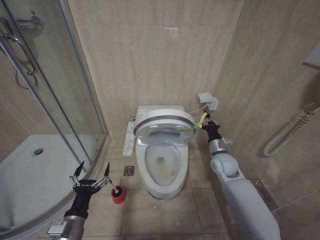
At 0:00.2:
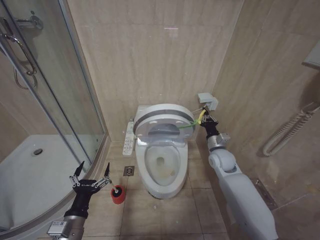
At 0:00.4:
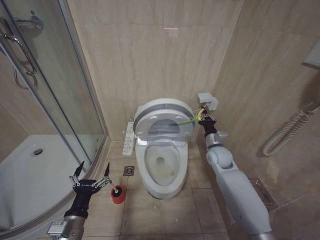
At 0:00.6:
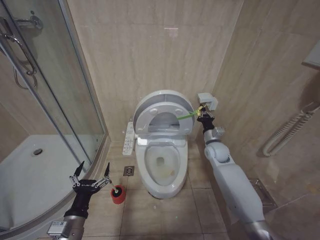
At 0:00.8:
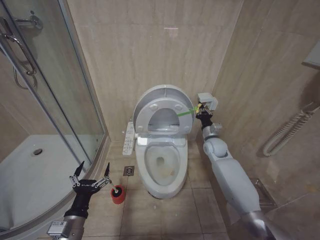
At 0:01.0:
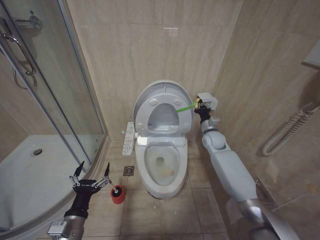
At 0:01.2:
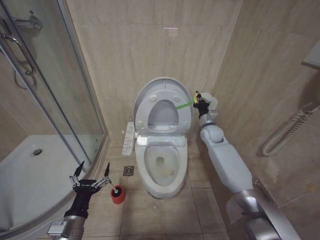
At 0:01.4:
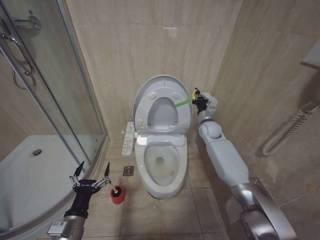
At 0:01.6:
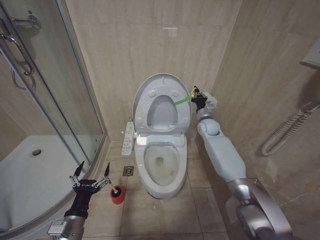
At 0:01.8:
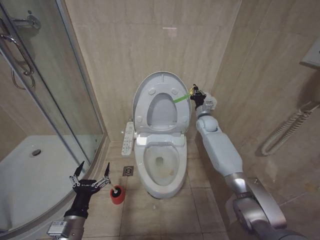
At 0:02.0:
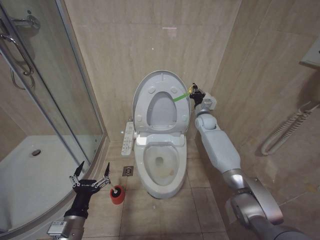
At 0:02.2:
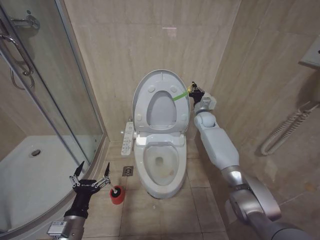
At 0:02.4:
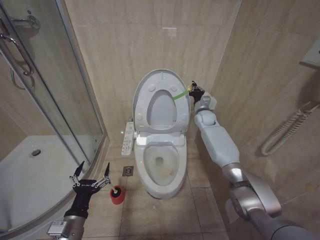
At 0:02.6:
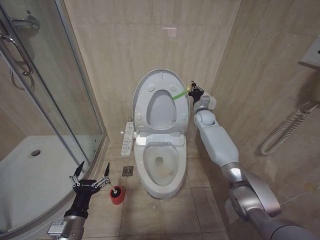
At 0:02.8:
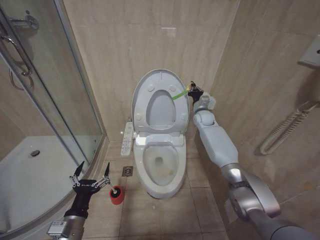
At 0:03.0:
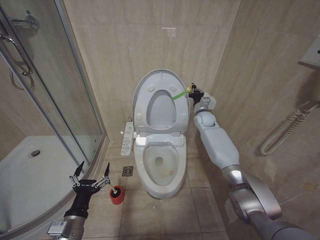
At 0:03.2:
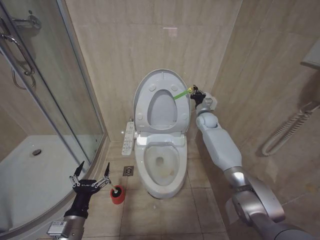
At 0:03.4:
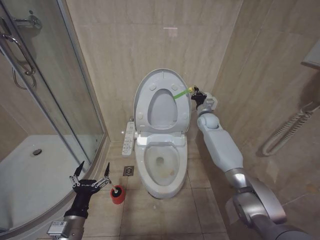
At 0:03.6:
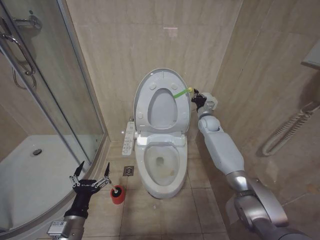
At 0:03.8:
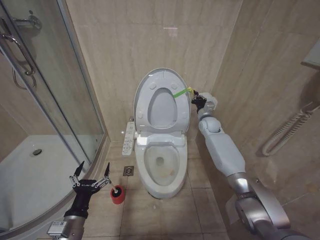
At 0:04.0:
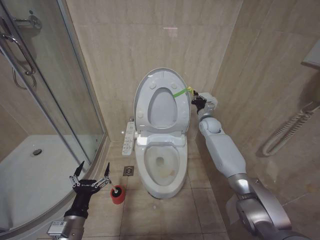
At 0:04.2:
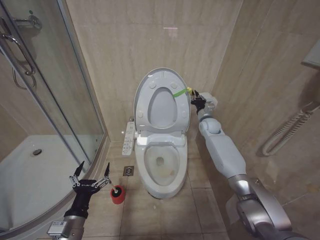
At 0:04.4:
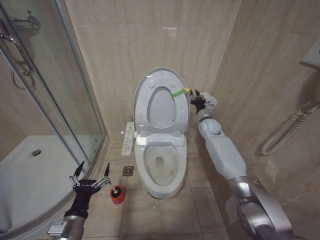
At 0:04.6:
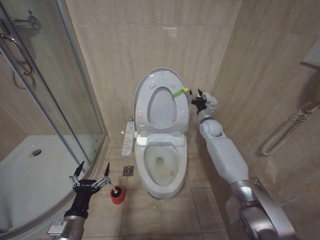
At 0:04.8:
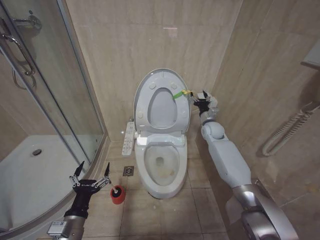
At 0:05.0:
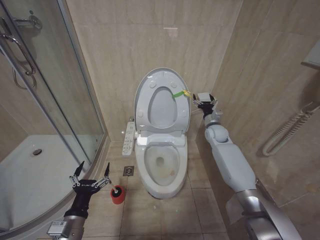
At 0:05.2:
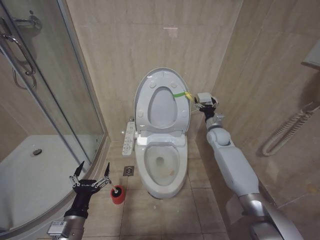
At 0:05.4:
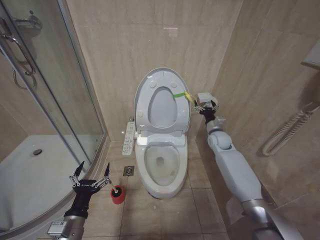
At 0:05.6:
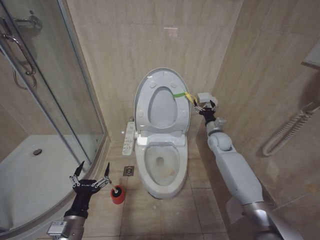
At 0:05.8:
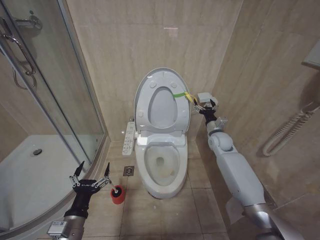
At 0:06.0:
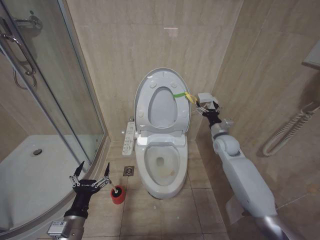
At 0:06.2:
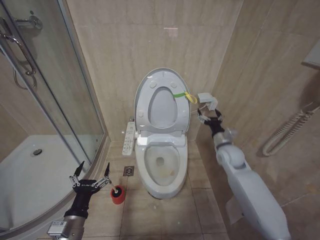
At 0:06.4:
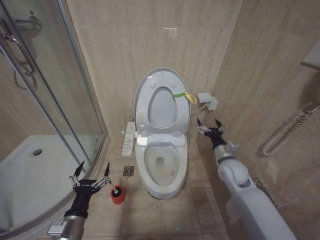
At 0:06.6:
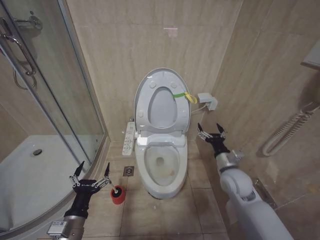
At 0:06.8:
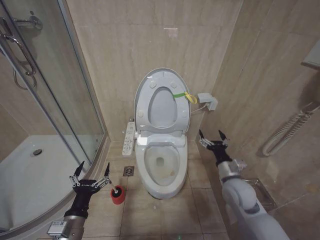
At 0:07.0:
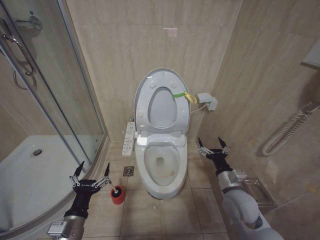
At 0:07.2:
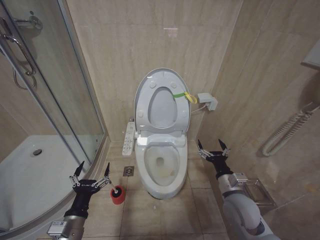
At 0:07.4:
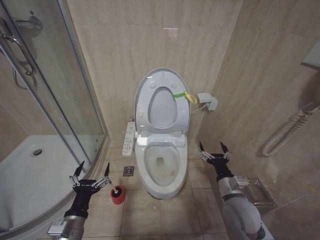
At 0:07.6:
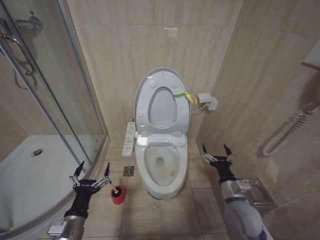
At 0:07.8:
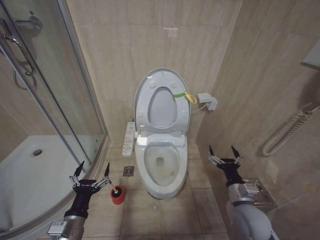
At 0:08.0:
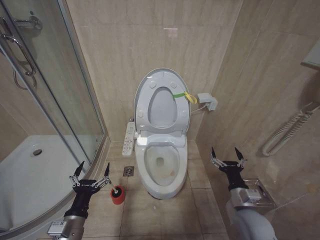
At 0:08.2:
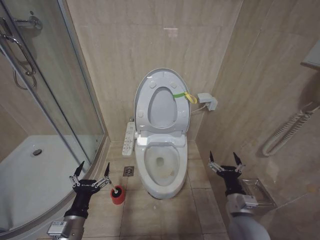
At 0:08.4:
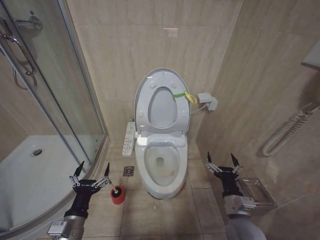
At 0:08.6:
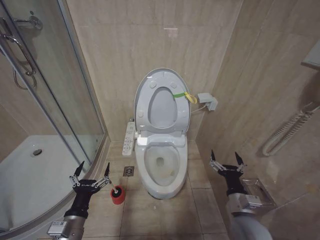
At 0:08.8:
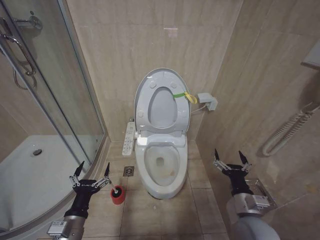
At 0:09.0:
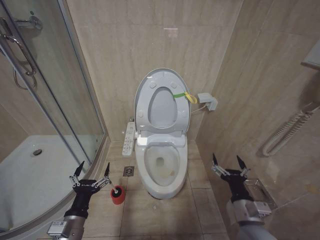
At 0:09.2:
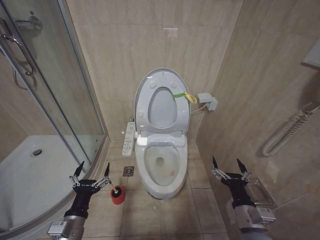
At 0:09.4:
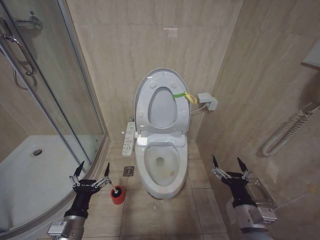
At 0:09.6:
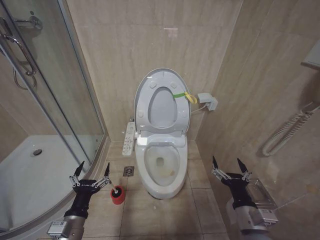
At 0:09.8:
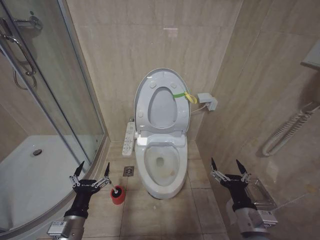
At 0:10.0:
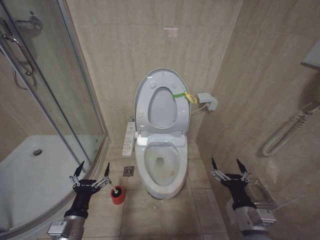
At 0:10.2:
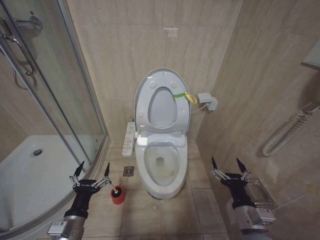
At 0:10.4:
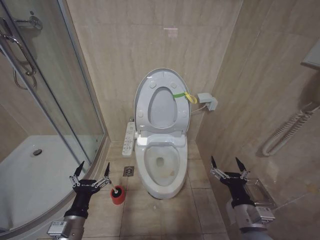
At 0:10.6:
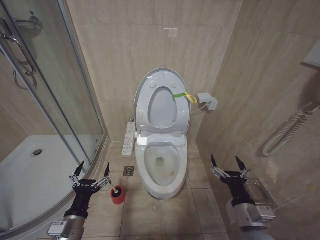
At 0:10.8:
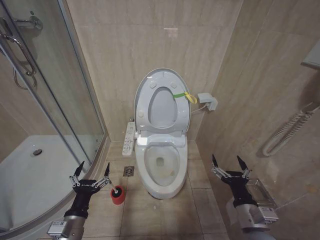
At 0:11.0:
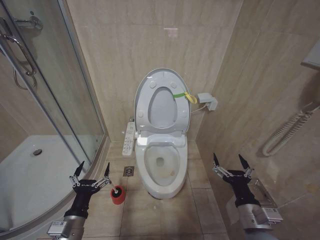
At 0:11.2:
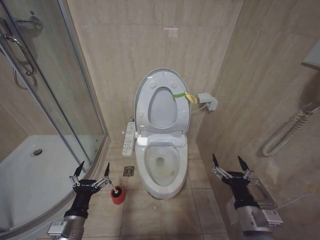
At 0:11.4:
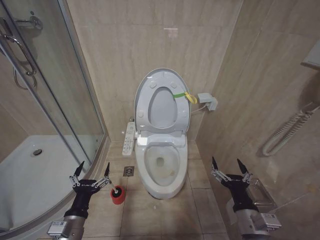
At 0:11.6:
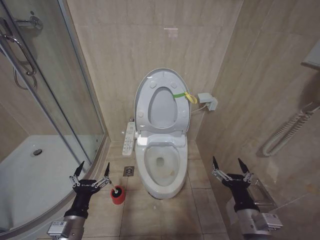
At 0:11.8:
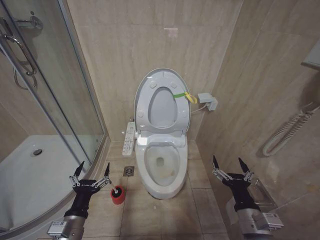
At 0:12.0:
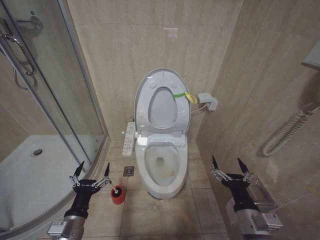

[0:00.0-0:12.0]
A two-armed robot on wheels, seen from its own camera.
Task of the whole recording: Open the toilet lid, clean the toilet bowl with a toilet brush, close the toilet lid, and flush.
0:00.0 to 0:01.6: The right gripper moves forward and upward, some 15 cm.
0:01.6 to 0:04.4: The grippers move only a little.
0:04.4 to 0:06.0: The right gripper is displaced backward by some 10 cm, and opens.
0:06.0 to 0:07.6: The right gripper heads backward, covering about 25 cm.
0:07.6 to 0:09.0: The right gripper is displaced backward by some 5 cm.
0:09.0 to 0:12.0: There are only small adjustments of the grippers.

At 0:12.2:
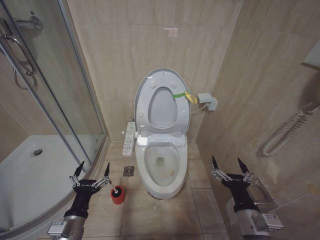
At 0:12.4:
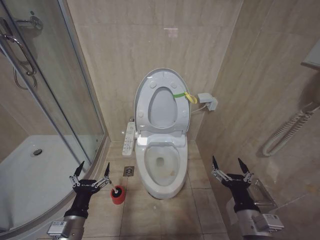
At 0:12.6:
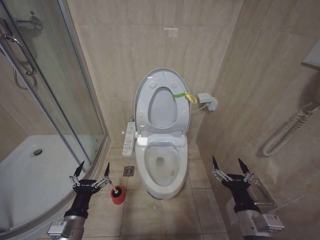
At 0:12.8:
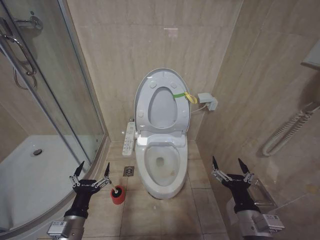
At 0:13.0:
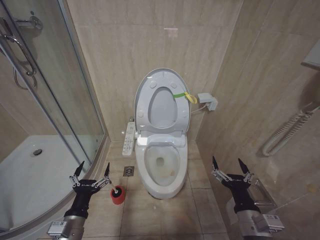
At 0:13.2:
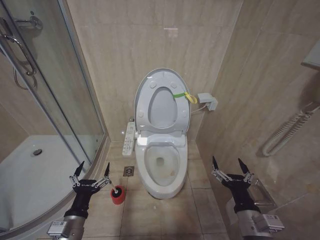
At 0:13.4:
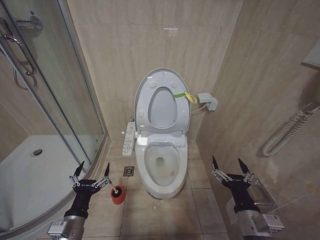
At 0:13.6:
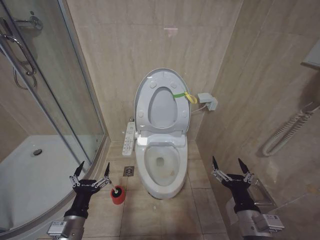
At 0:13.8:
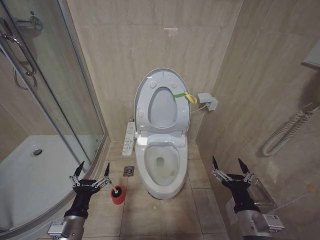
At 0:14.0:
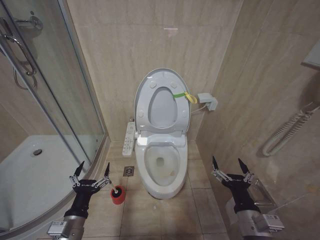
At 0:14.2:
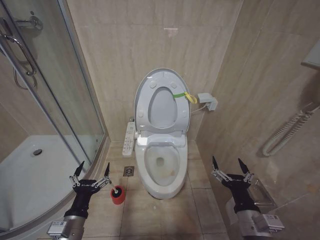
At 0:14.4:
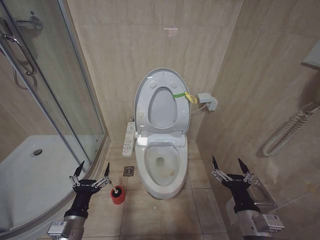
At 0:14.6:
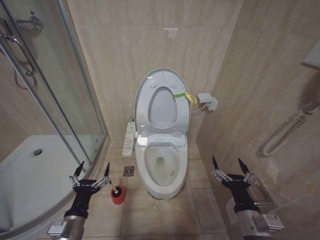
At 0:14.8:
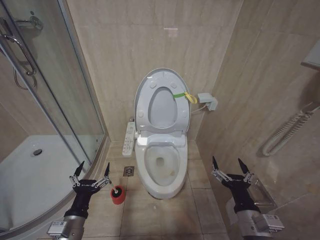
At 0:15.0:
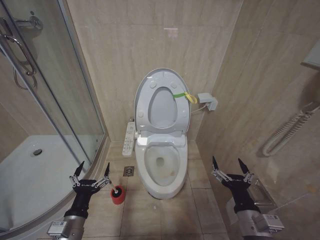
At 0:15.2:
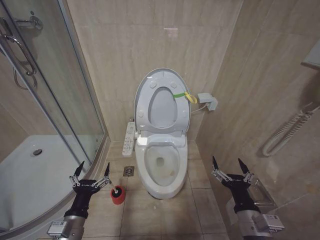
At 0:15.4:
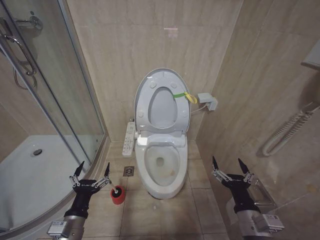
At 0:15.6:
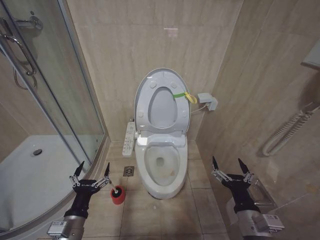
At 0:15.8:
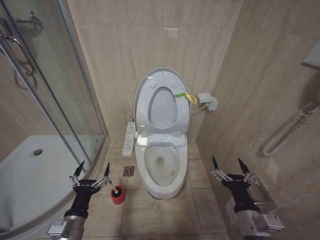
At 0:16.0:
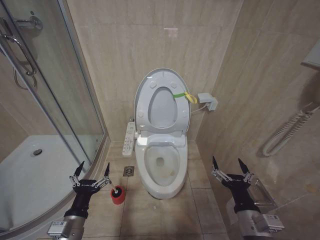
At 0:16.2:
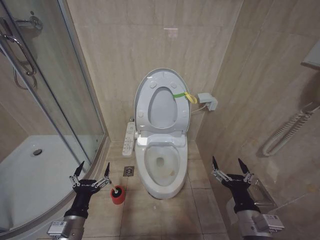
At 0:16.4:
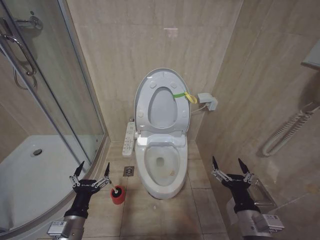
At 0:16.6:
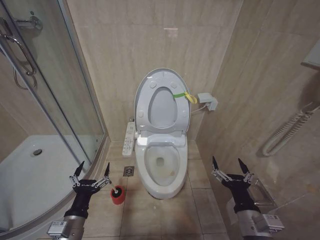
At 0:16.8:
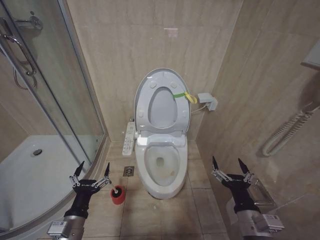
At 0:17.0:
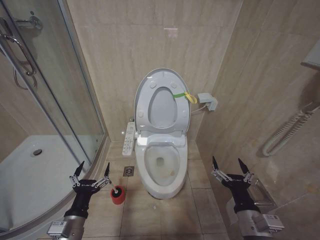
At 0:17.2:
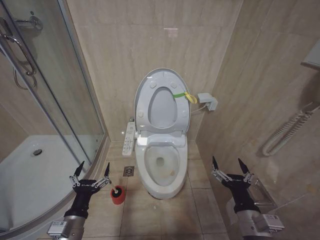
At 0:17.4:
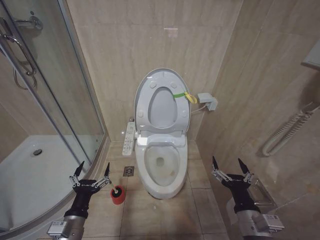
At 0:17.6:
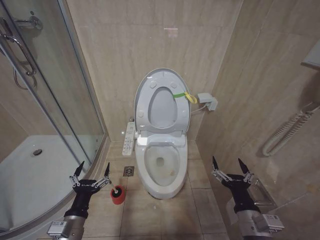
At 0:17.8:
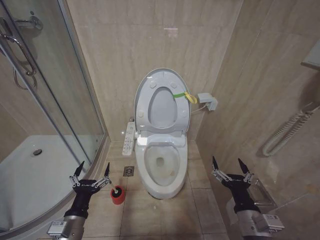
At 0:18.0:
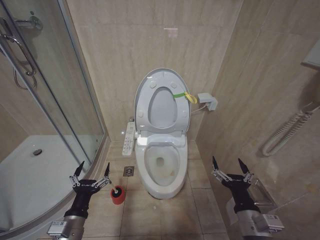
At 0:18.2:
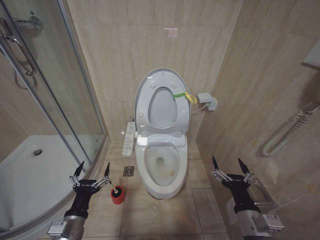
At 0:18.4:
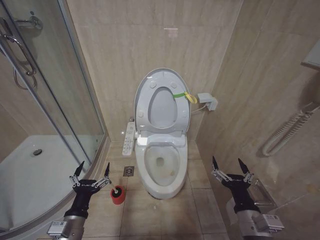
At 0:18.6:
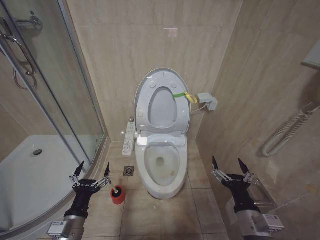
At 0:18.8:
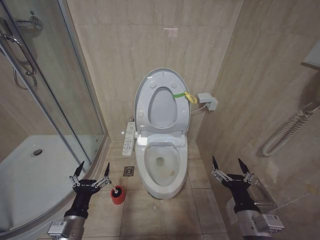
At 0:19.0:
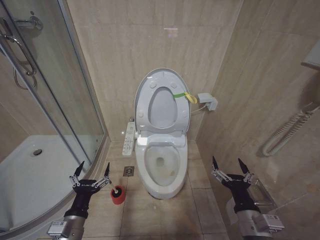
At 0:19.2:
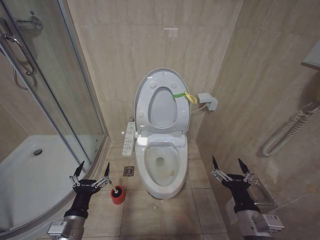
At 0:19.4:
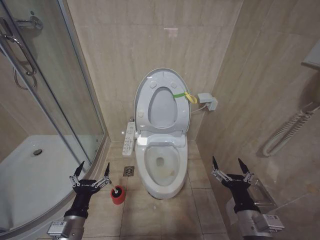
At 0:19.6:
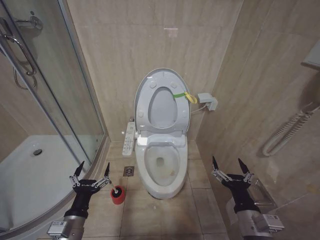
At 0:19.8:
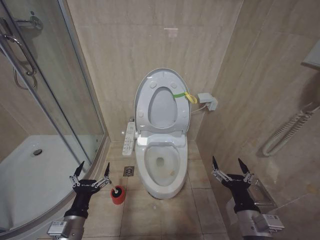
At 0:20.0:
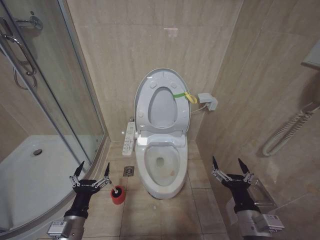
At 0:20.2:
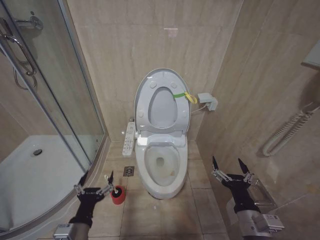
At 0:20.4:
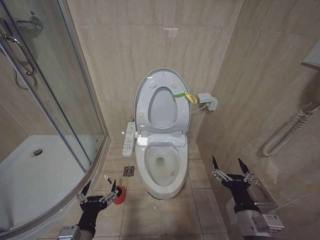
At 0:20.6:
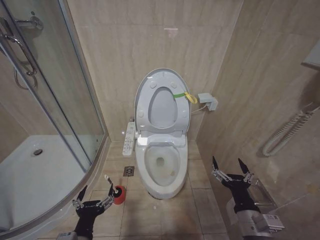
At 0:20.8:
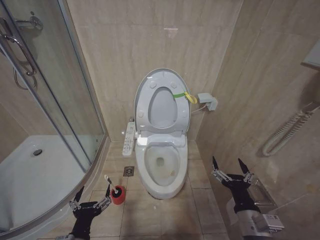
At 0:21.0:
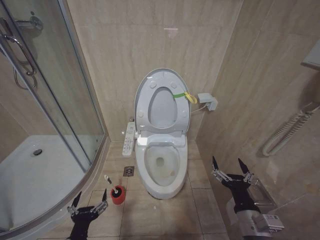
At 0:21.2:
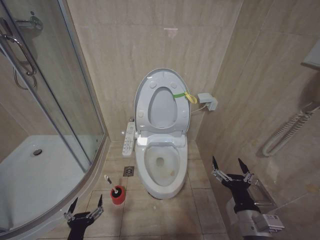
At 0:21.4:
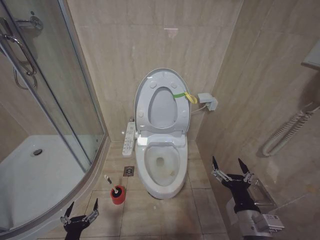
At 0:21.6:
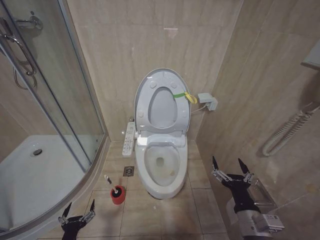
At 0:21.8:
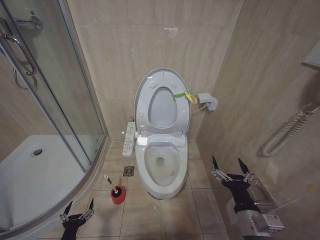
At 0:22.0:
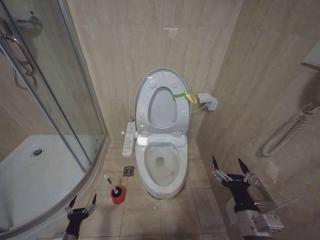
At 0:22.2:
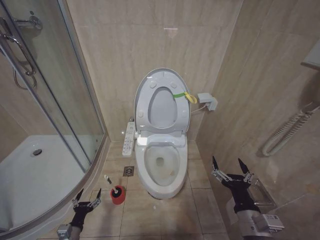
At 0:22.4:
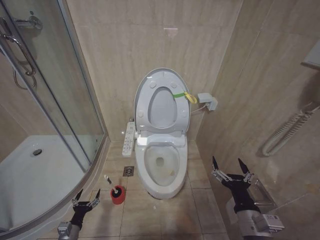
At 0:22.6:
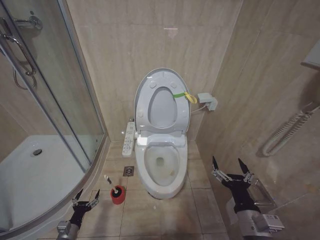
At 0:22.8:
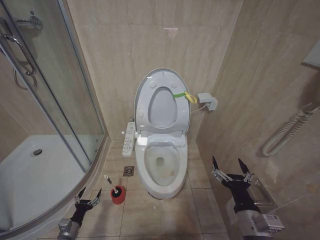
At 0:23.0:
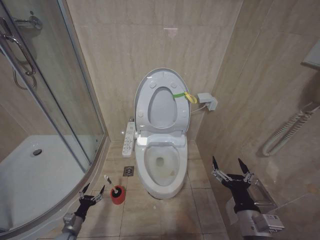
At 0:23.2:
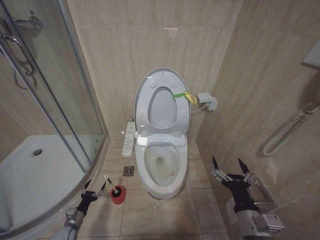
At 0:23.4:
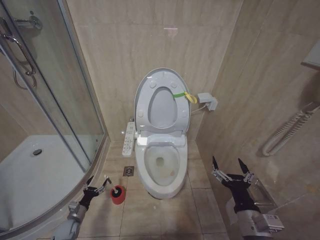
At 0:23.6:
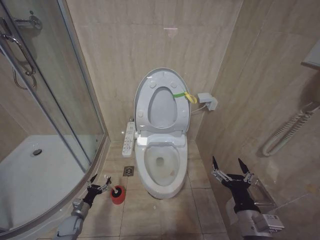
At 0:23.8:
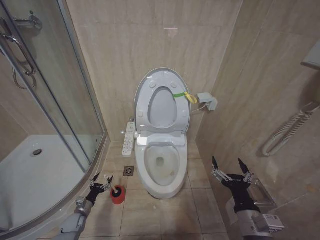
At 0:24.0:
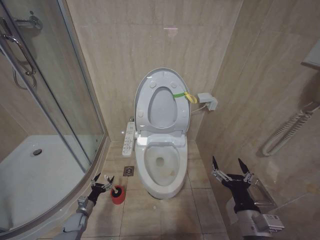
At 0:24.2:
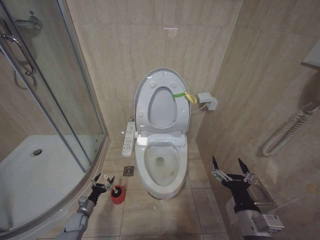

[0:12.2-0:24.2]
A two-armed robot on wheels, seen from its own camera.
Task of the whole recording: Open the toilet lid, clean the toilet bowl with a toilet brush, close the toilet lid, and flush.
0:12.2 to 0:19.8: Neither gripper changes place.
0:19.8 to 0:21.2: The left gripper is displaced downward and backward by about 10 cm.
0:21.2 to 0:22.6: The left gripper is displaced downward, to the left and forward by some 25 cm.
0:22.6 to 0:24.2: The left gripper is displaced forward by approximately 10 cm.
